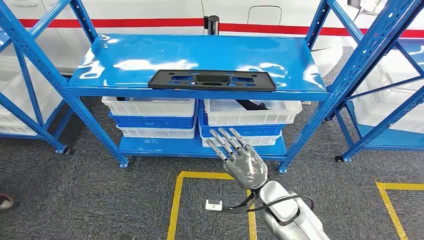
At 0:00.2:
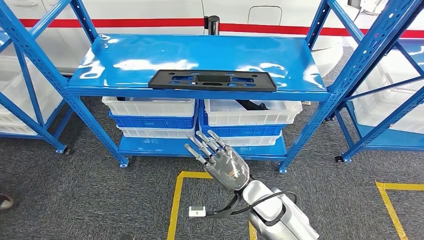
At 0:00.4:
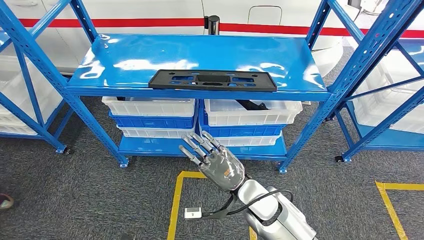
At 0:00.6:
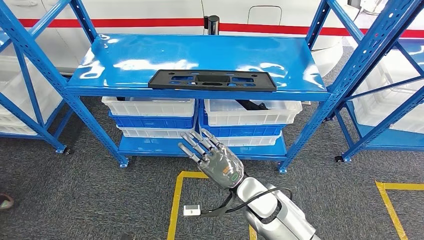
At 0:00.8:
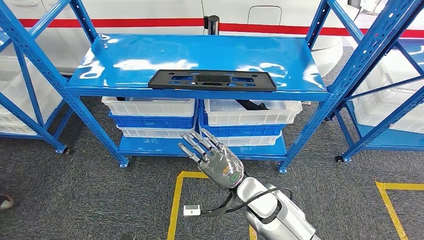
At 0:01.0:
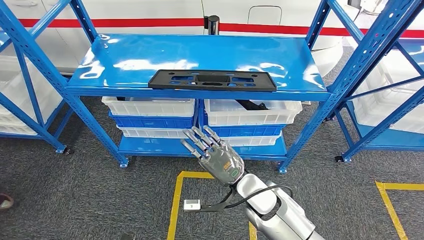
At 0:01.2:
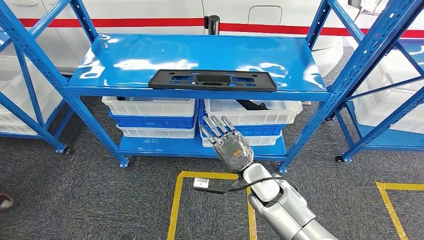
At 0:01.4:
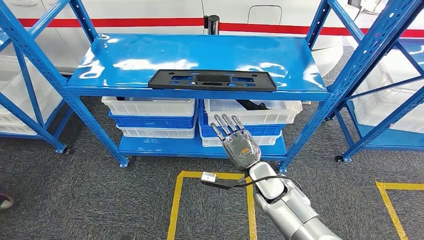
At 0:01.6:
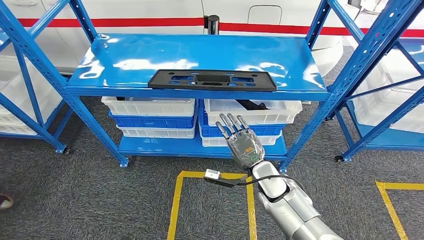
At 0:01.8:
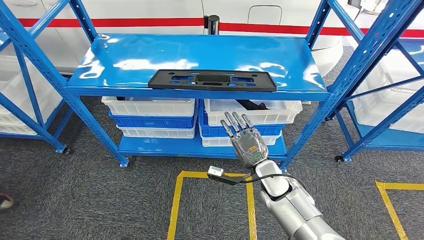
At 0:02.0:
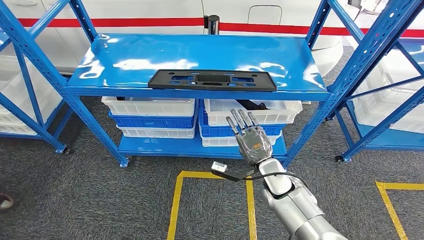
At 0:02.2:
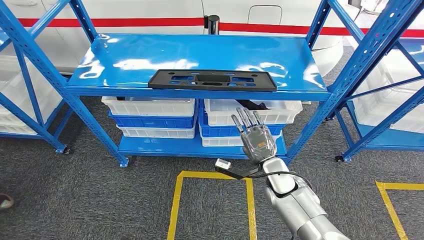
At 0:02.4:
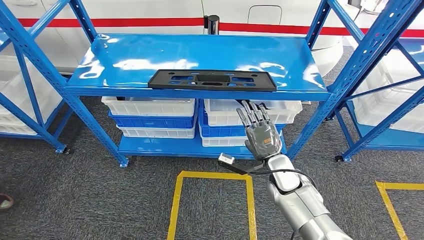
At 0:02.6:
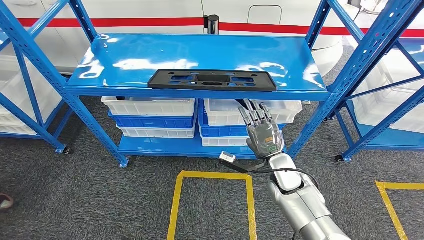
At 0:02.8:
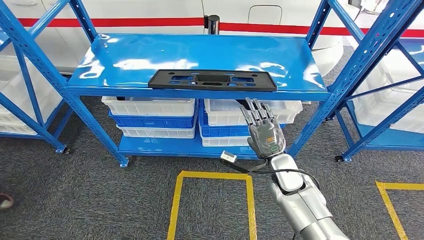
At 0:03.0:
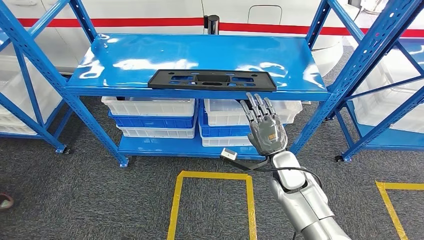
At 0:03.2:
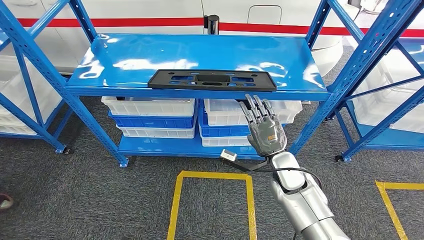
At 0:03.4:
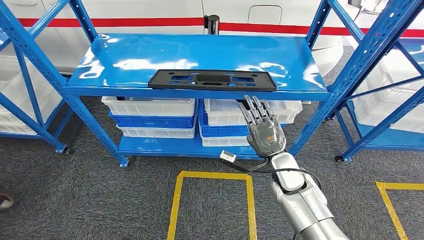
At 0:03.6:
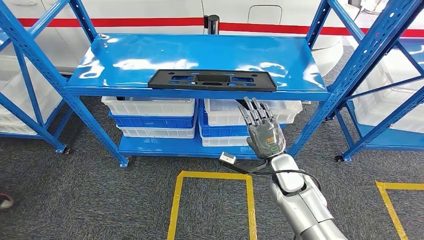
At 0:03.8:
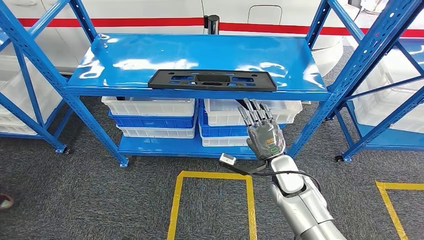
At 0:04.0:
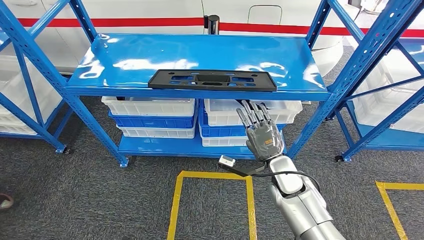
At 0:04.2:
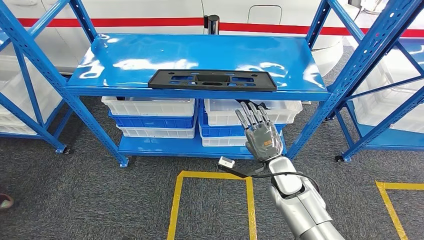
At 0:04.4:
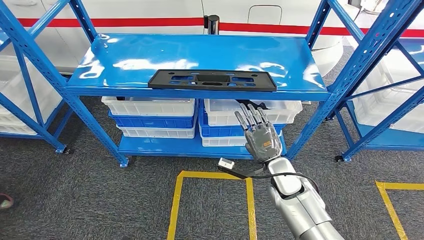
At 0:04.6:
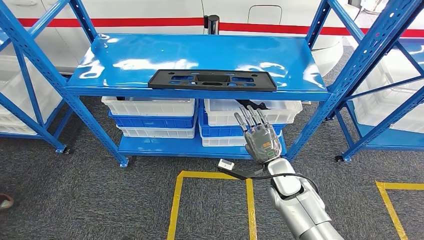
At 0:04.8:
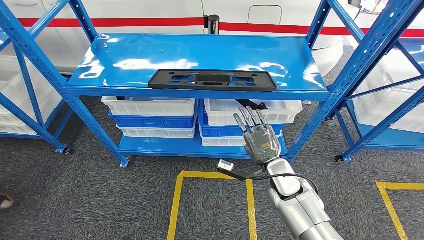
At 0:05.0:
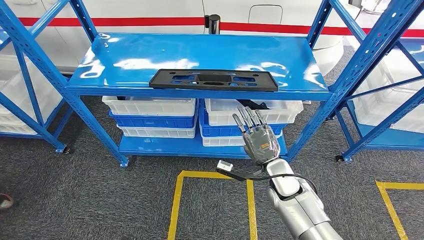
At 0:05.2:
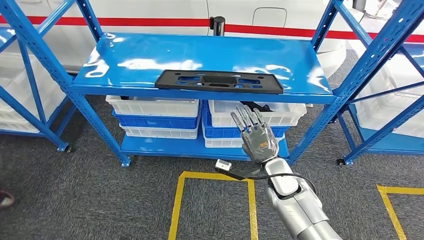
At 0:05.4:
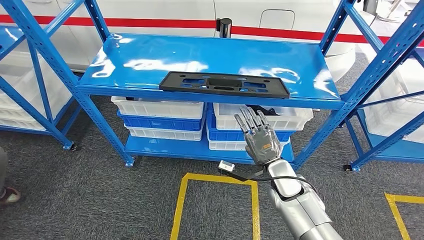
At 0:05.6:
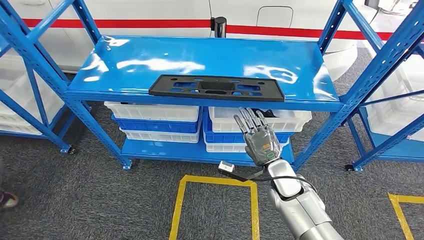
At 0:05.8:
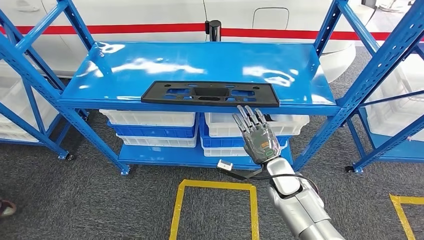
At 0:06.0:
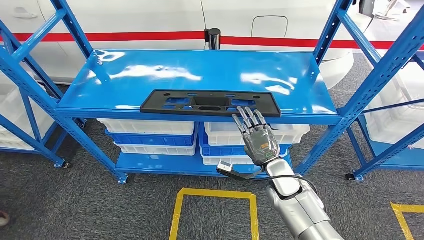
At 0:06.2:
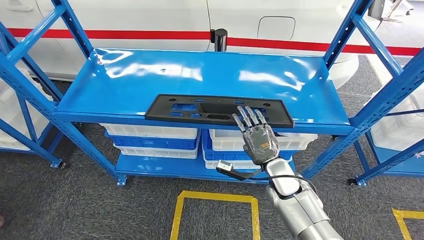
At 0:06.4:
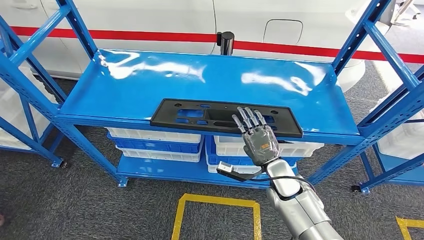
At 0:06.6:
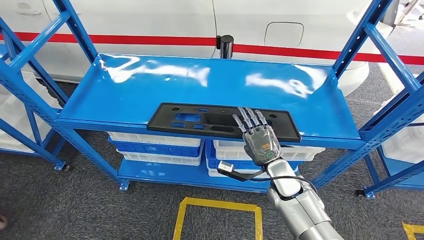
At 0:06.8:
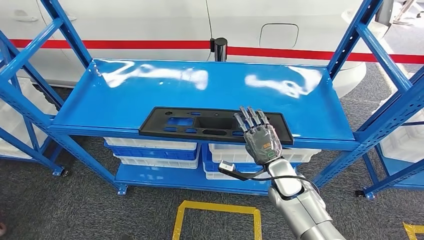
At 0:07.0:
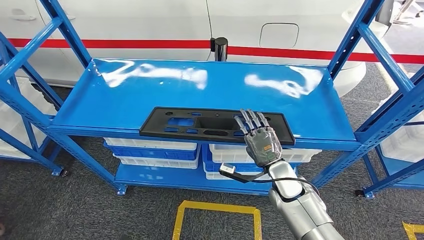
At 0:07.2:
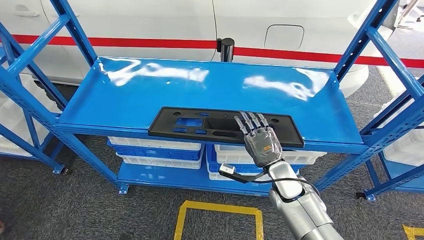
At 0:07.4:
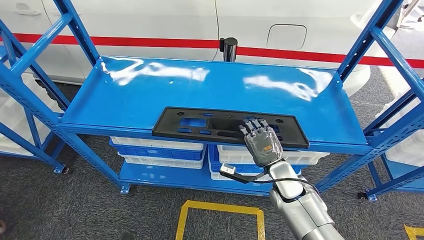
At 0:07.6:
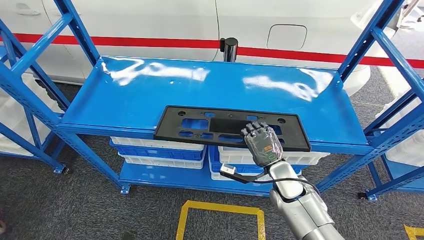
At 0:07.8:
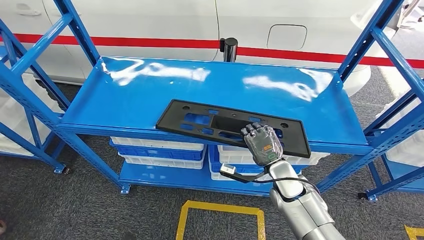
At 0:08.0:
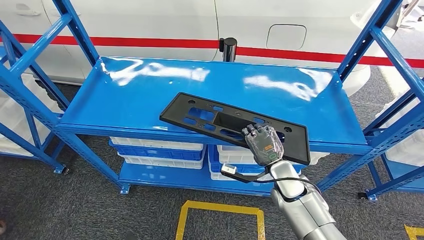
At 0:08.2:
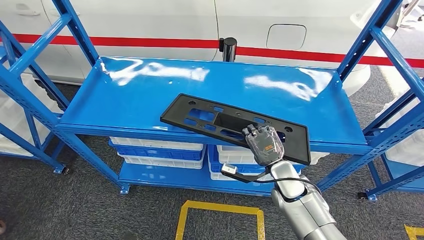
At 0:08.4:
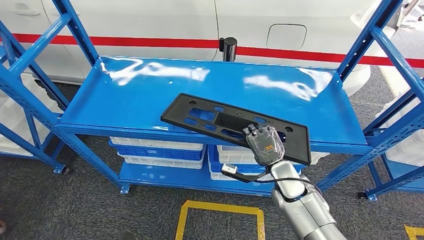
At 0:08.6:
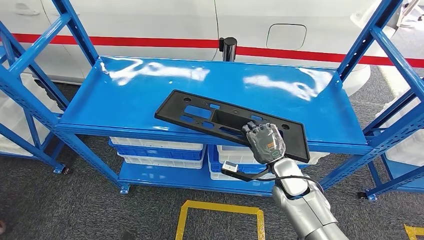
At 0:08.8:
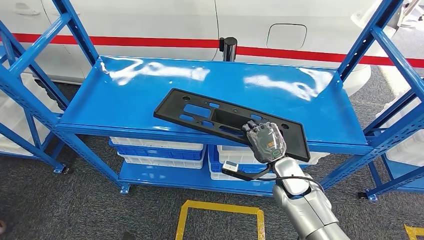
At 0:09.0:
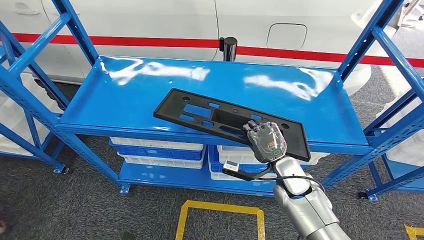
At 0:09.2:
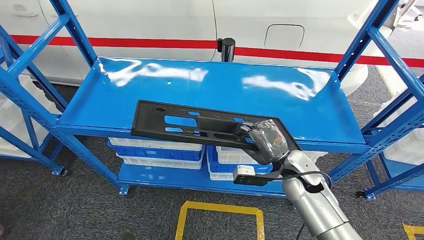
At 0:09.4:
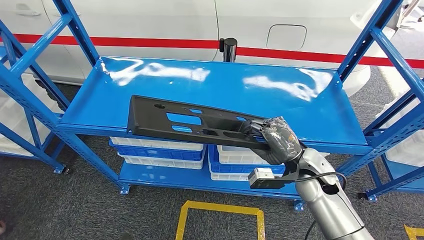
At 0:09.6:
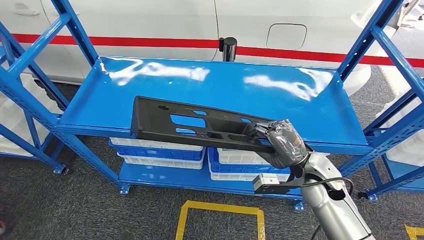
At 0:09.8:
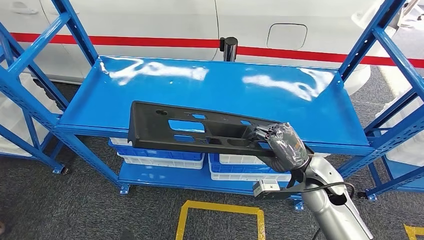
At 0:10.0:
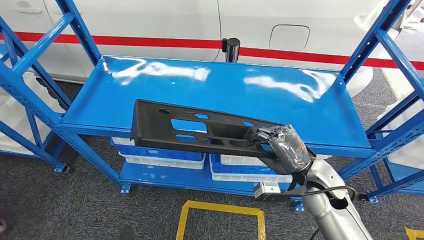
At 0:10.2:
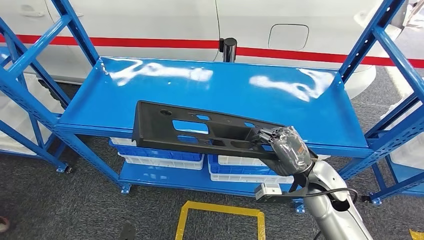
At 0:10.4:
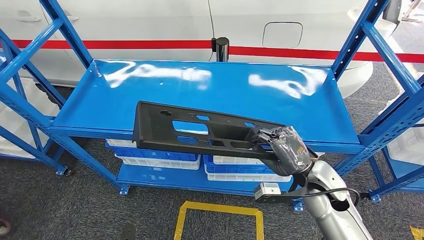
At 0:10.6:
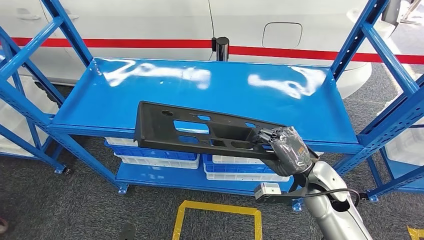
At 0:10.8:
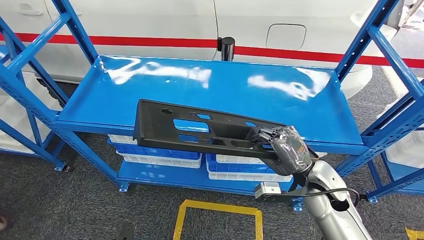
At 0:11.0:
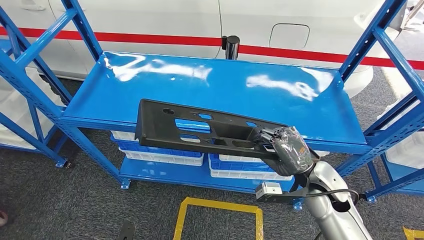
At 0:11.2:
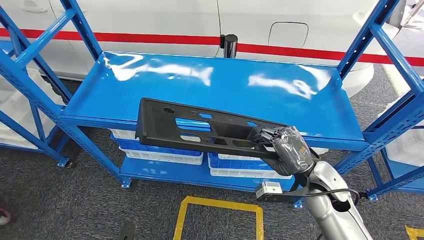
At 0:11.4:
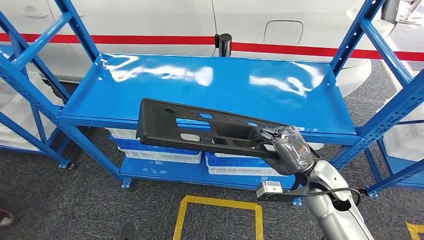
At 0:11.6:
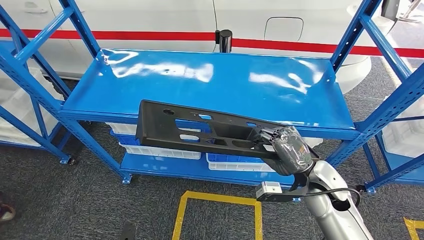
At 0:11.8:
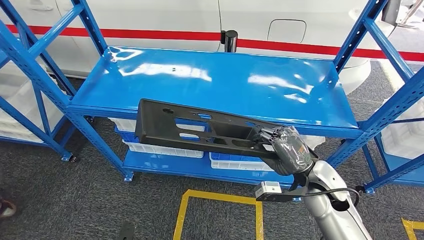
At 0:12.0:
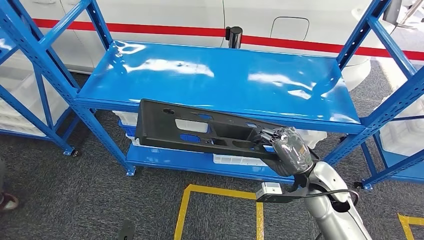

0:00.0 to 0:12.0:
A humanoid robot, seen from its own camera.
Step, 0:00.0 to 0:10.4: Pick up the large material from the shelf.
0:01.6 to 0:03.0: The right hand changes place by approximately 5 cm.
0:03.0 to 0:04.4: The hands make only small movements.
0:07.6 to 0:09.0: The hands make only small movements.

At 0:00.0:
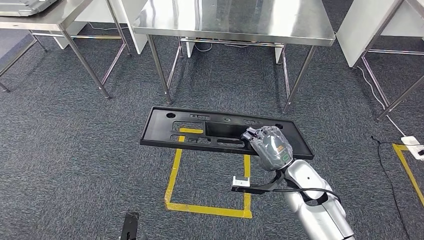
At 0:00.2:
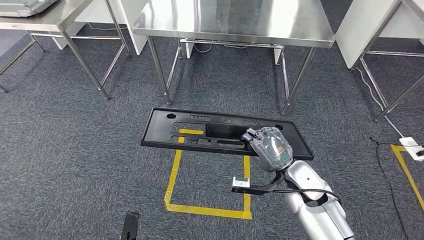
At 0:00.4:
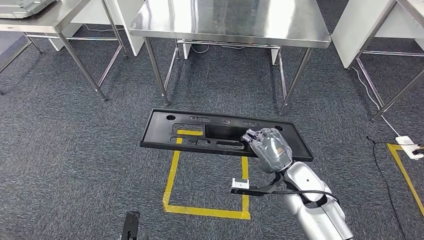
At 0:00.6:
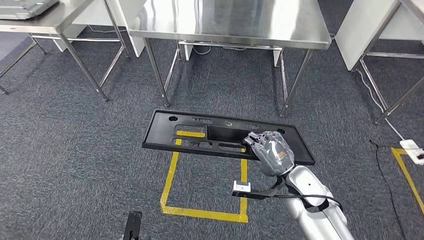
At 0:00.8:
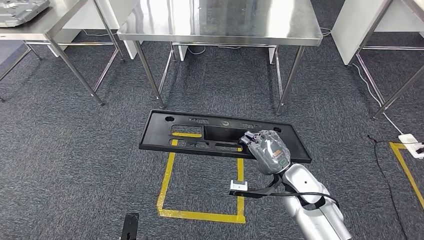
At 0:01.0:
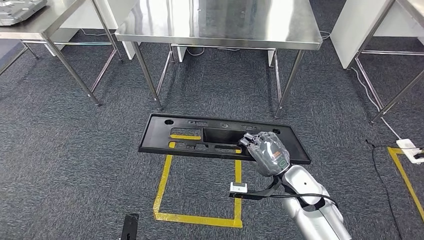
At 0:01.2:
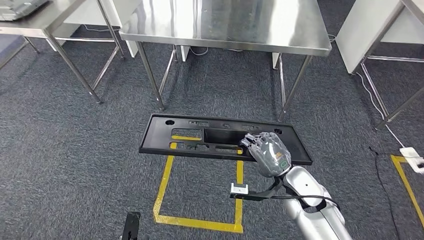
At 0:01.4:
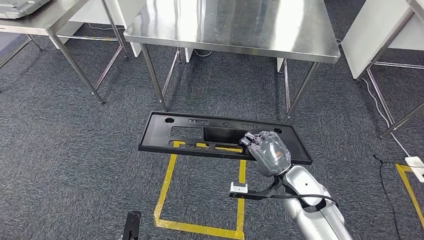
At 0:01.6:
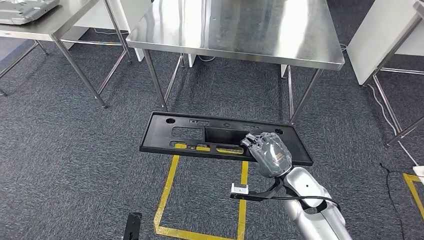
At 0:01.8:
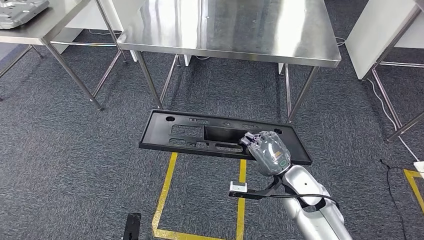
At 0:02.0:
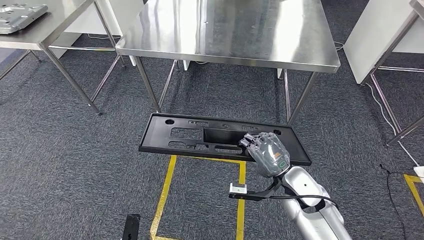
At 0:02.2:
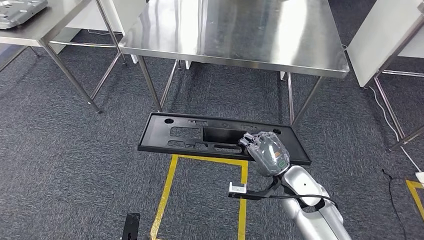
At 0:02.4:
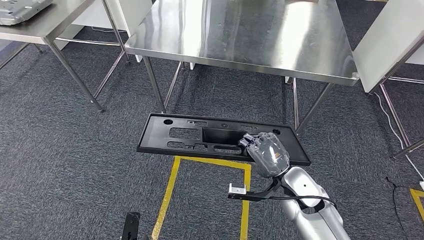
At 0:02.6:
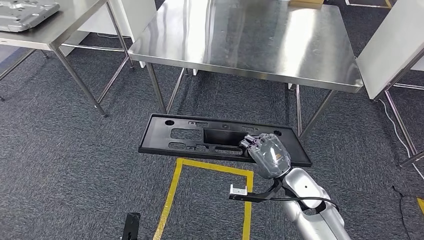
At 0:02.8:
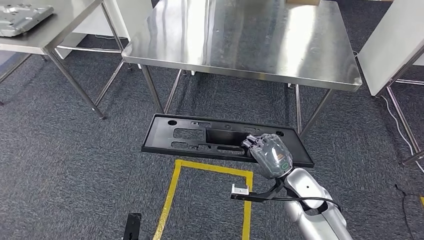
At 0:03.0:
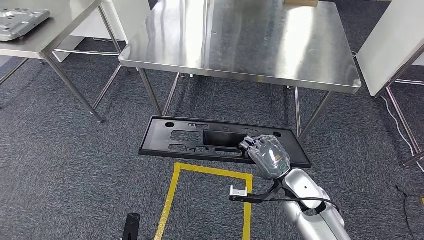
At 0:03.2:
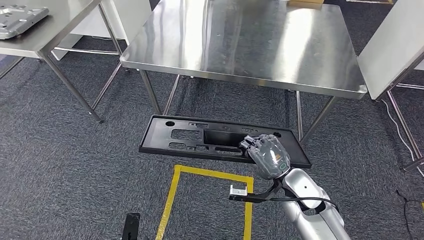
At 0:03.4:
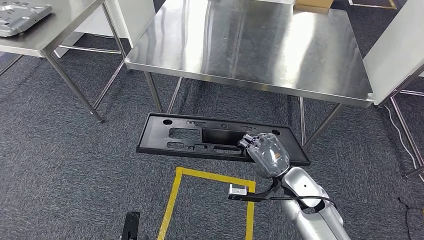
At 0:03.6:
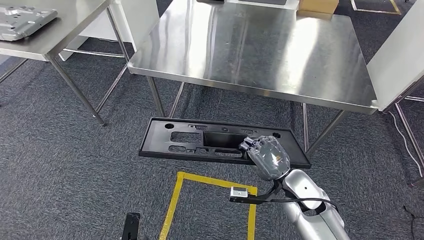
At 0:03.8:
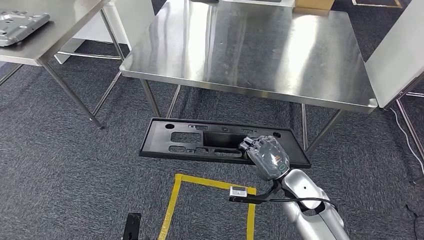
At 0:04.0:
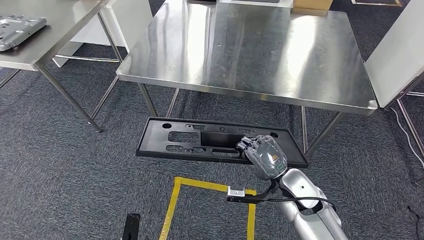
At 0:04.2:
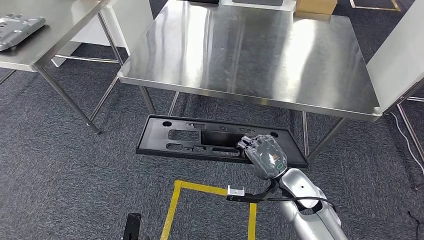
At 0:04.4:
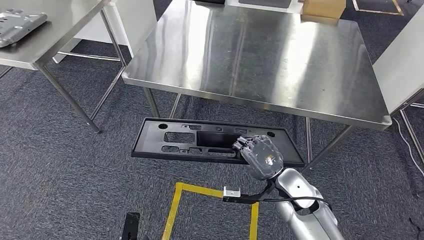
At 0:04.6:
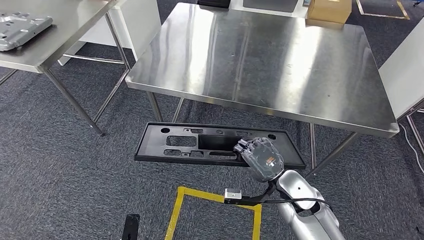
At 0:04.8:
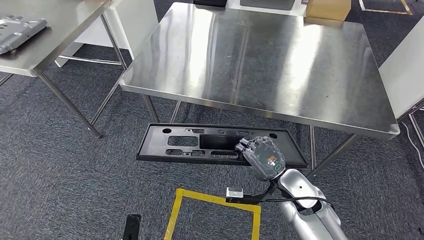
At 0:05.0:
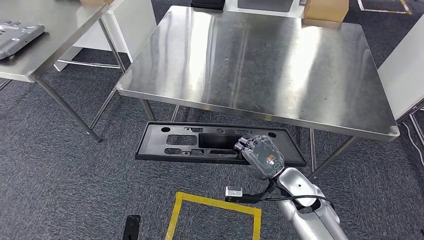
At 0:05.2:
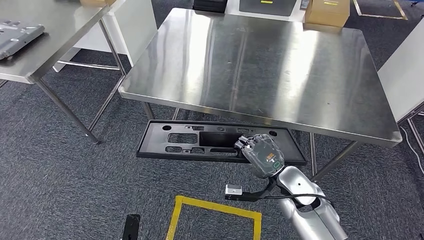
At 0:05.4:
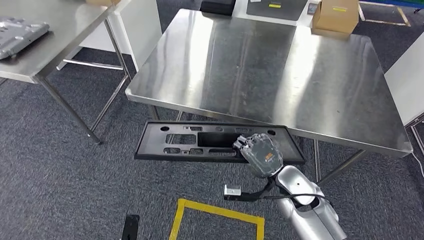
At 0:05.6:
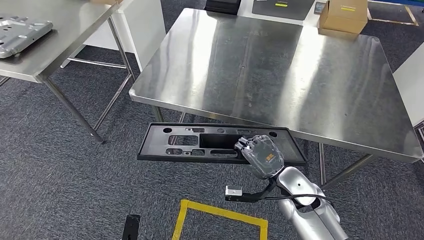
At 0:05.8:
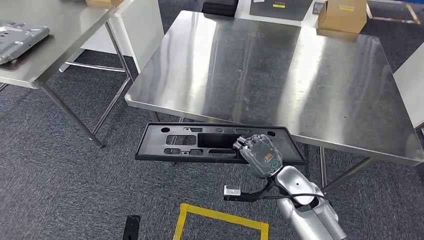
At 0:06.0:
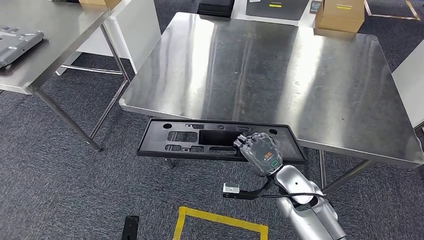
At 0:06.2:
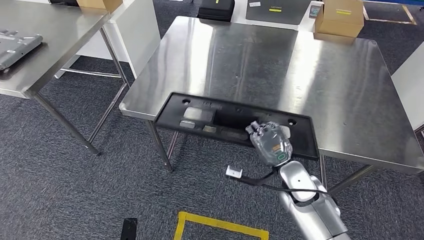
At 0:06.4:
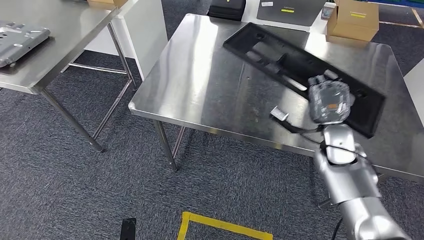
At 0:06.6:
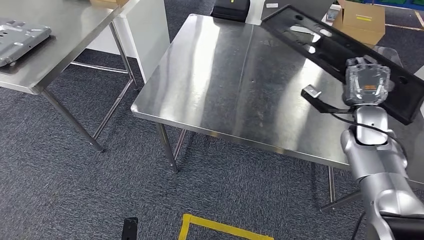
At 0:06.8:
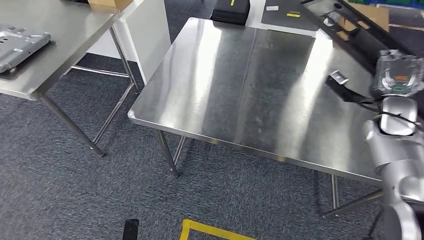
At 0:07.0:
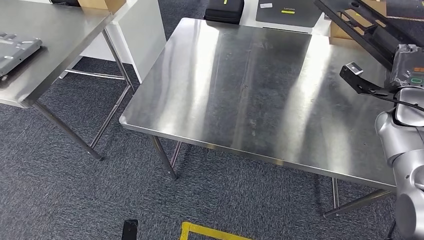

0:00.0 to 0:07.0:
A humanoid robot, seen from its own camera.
Step, 0:00.0 to 0:06.2: Move the large material to the workbench.
